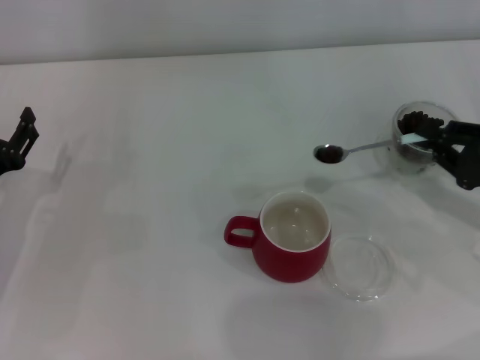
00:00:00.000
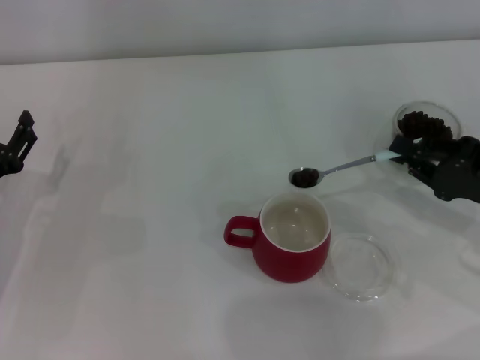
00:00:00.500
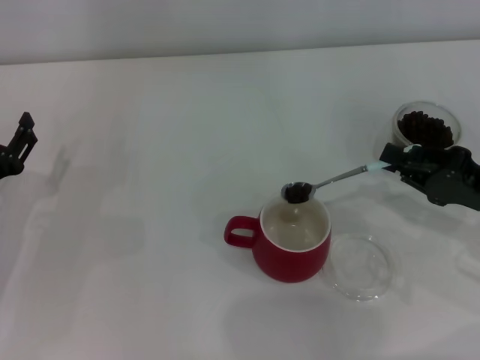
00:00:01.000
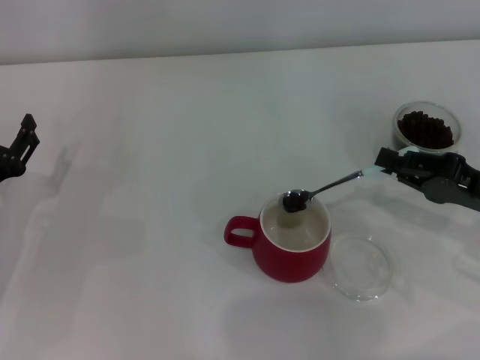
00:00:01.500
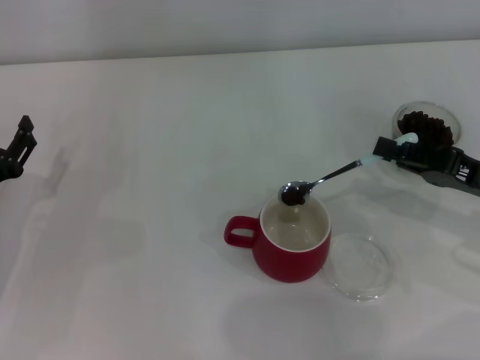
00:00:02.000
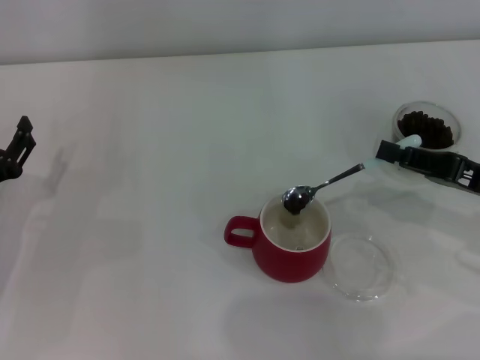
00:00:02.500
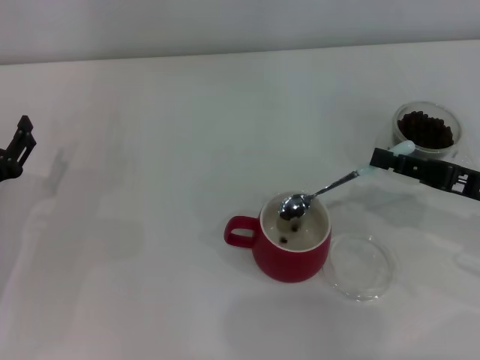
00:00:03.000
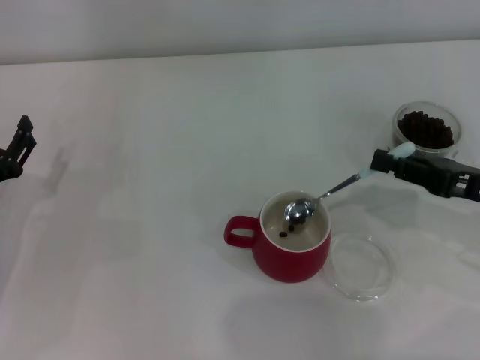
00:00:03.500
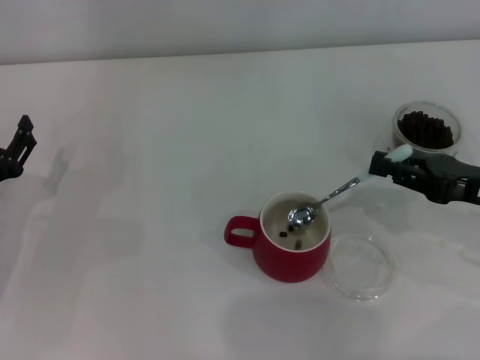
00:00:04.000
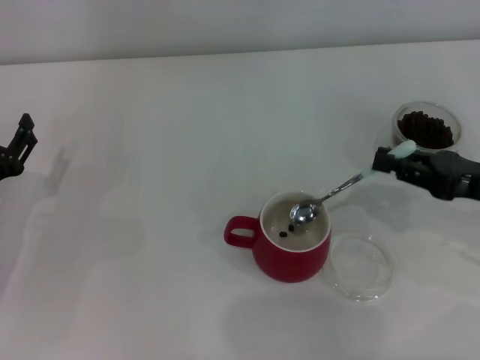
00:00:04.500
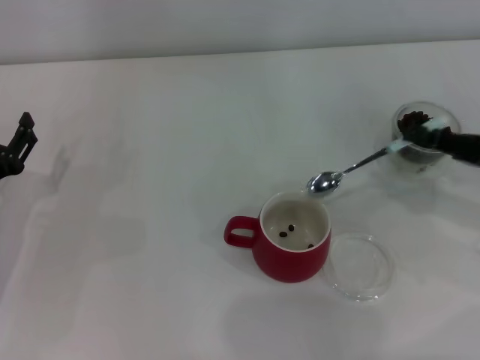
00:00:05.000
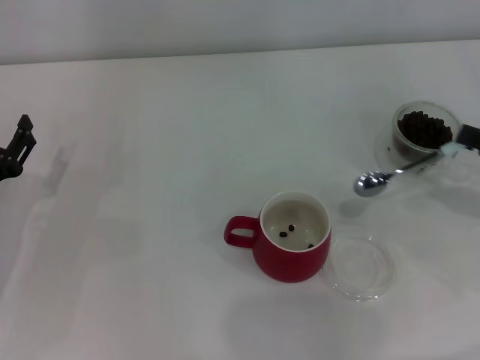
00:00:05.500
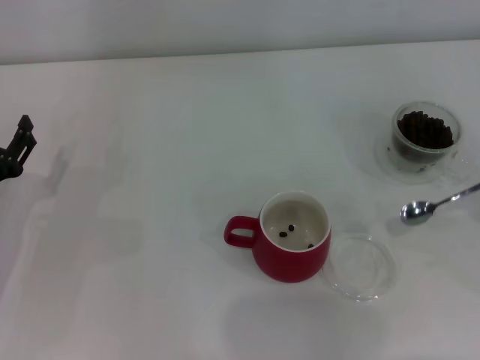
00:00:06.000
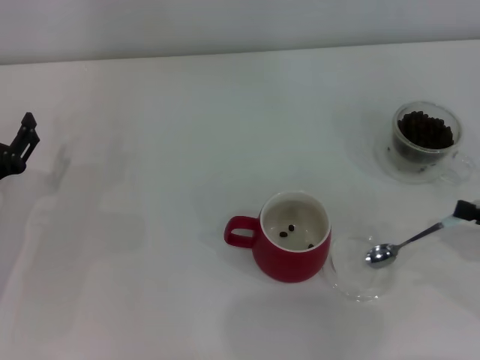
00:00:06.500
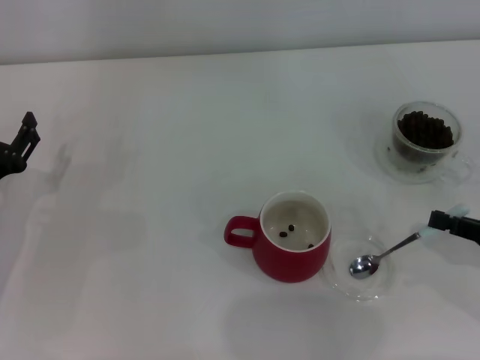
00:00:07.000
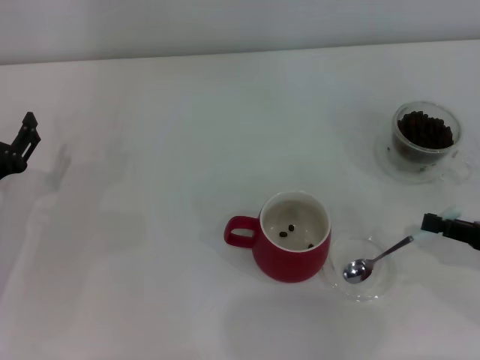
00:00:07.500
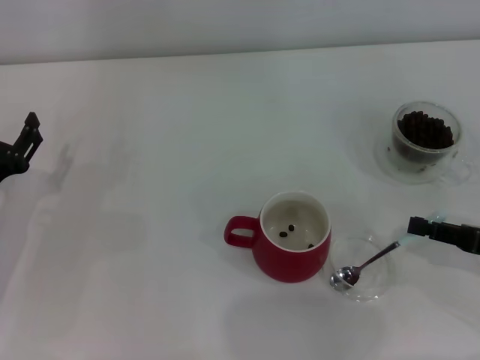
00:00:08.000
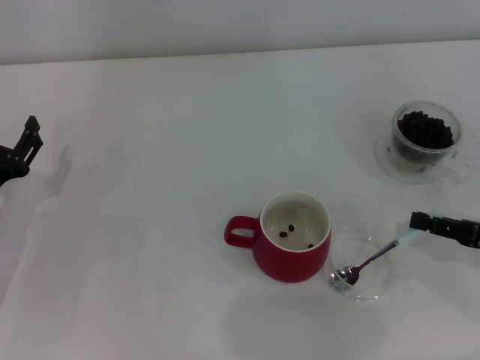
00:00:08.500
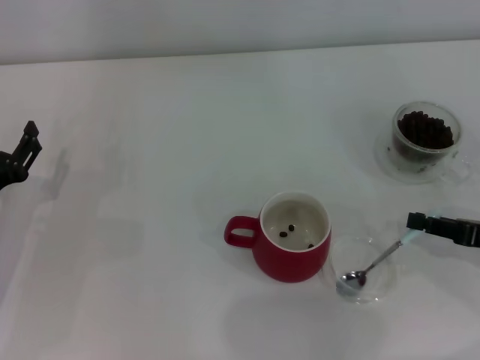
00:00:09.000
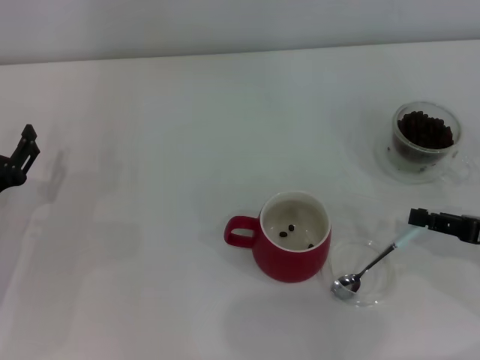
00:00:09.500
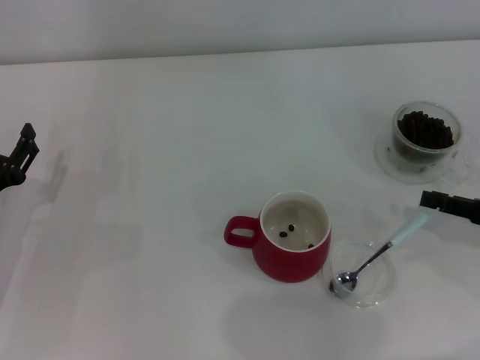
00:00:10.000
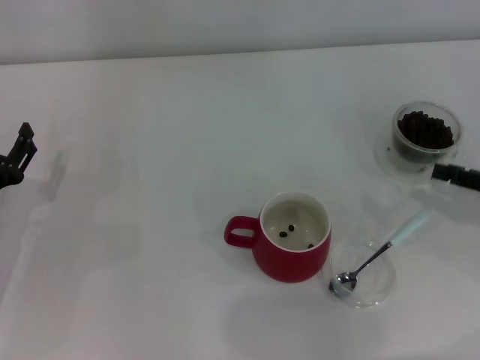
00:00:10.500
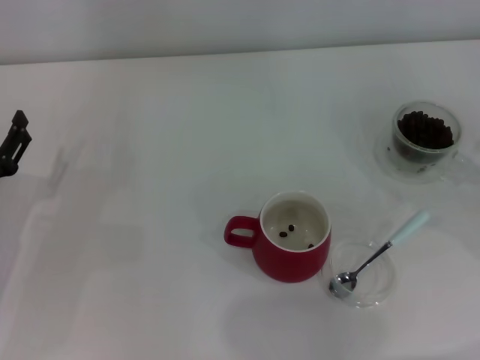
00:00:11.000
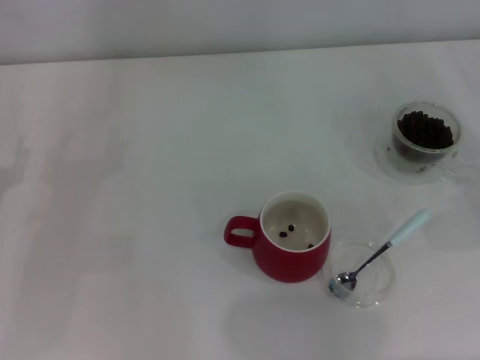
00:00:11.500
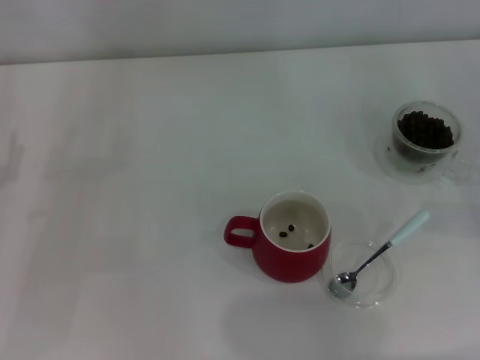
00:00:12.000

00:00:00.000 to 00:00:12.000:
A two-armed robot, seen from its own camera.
Task of the whole recording: Use a blue spoon to take out the coffee beans from the glass and pour them into the red cup.
Step, 00:00:00.000 to 00:00:04.000: Scoop a spoonful of beans into the cup with the right gripper.
Step, 00:00:04.500 to 00:00:10.000: Place the spoon back in its original place with the right gripper.
00:00:04.000 to 00:00:06.000: The right gripper heads to the right and backward, covering roughly 10 cm.
00:00:06.000 to 00:00:08.000: The right gripper is displaced to the left by about 5 cm.
00:00:08.000 to 00:00:10.000: The grippers stay close to where they were, moving slightly.
00:00:10.000 to 00:00:12.000: The right gripper travels to the right by roughly 5 cm, and opens up.
